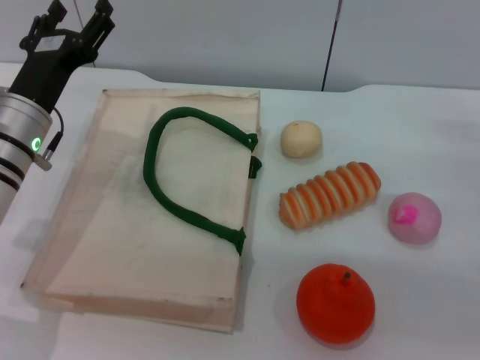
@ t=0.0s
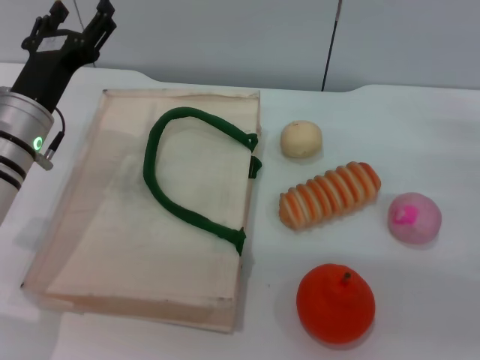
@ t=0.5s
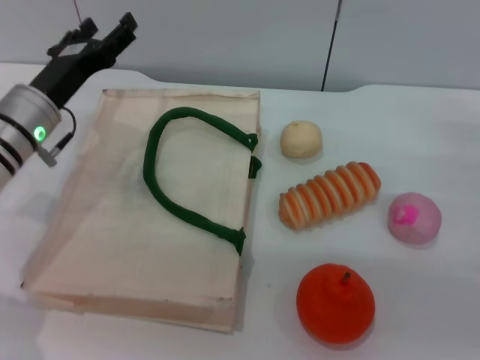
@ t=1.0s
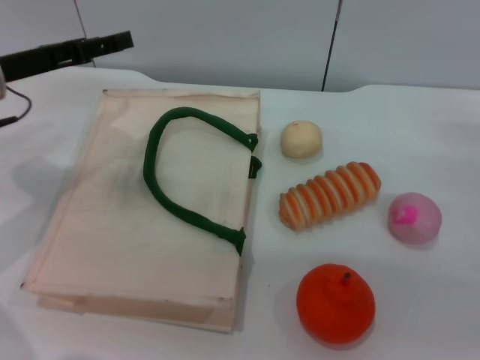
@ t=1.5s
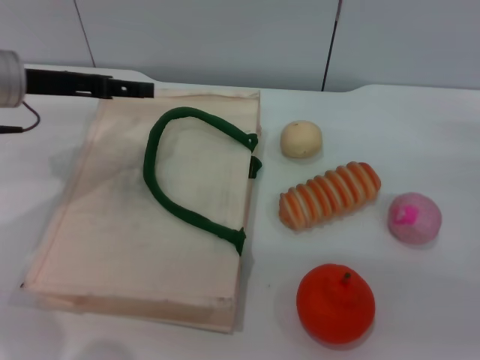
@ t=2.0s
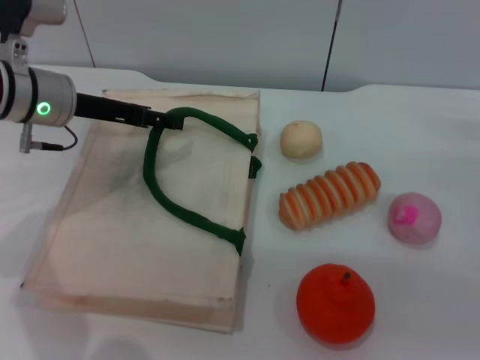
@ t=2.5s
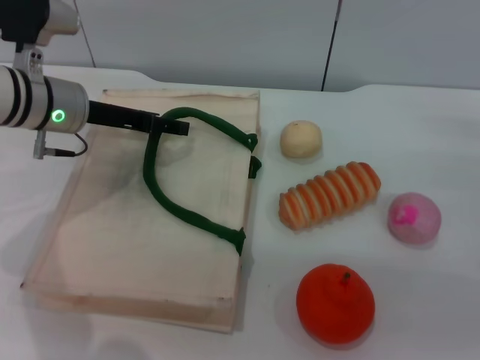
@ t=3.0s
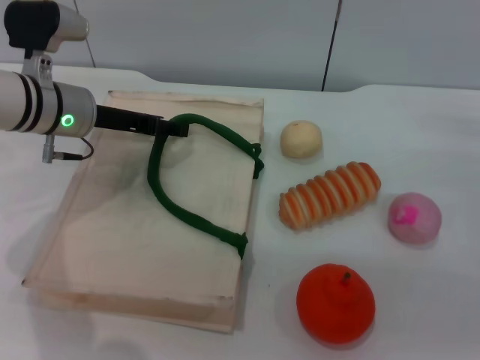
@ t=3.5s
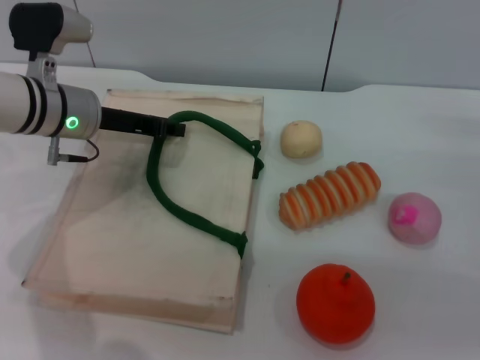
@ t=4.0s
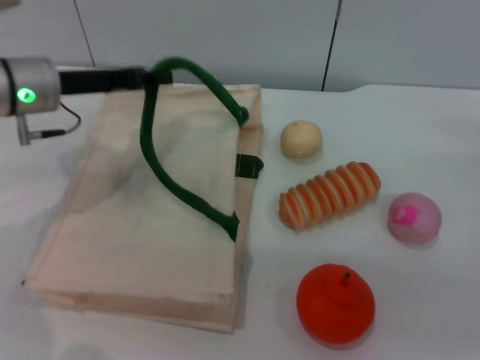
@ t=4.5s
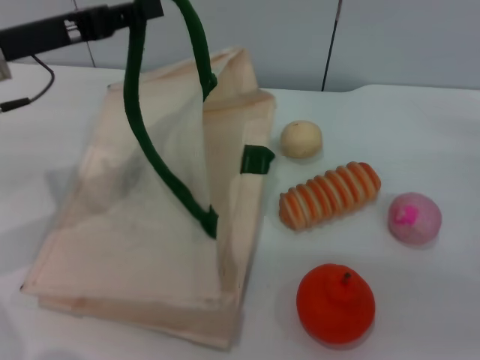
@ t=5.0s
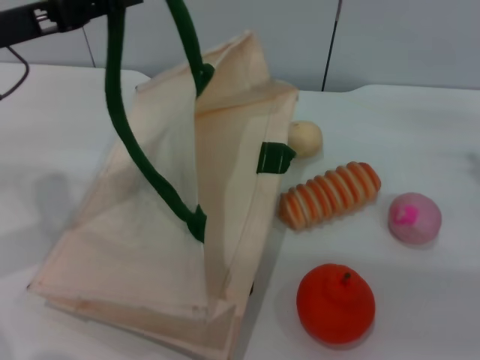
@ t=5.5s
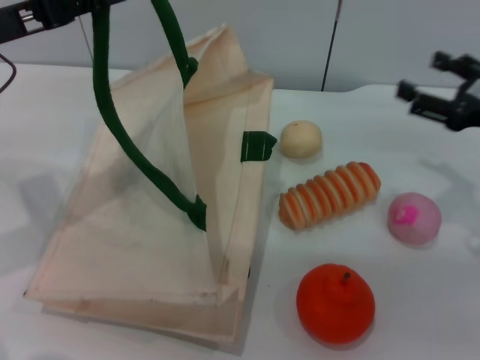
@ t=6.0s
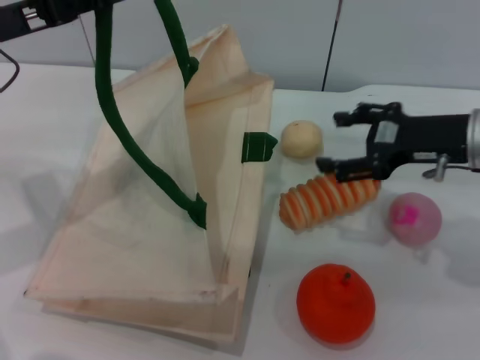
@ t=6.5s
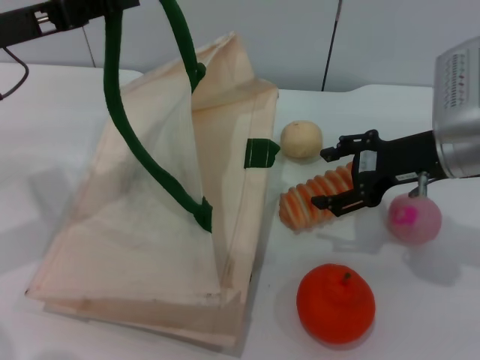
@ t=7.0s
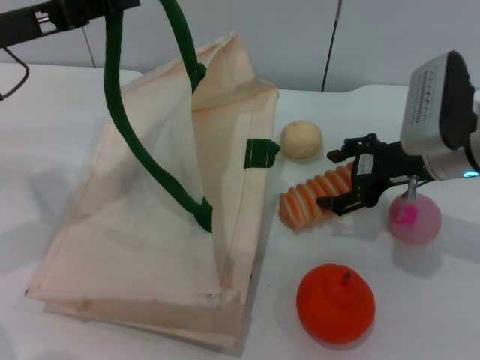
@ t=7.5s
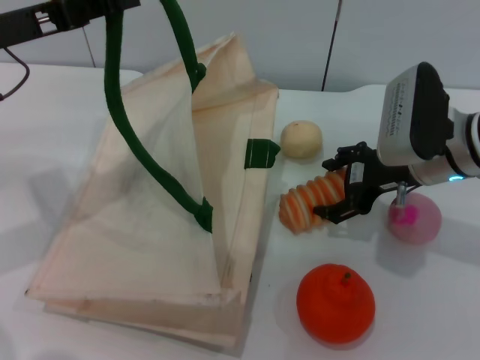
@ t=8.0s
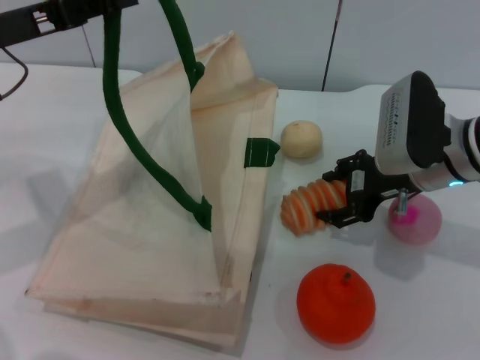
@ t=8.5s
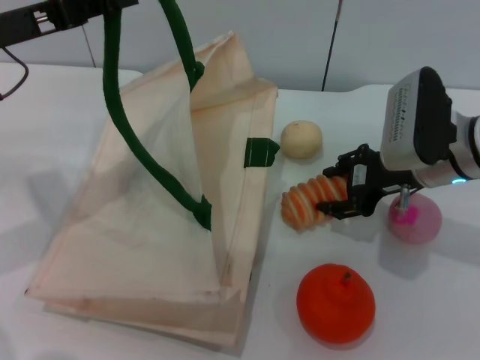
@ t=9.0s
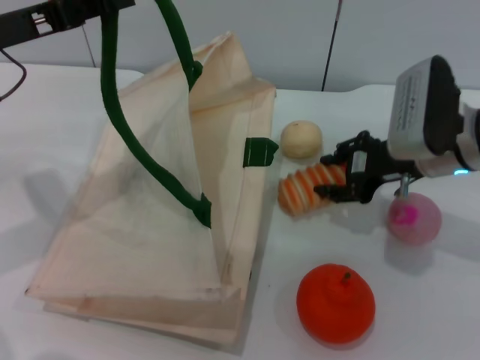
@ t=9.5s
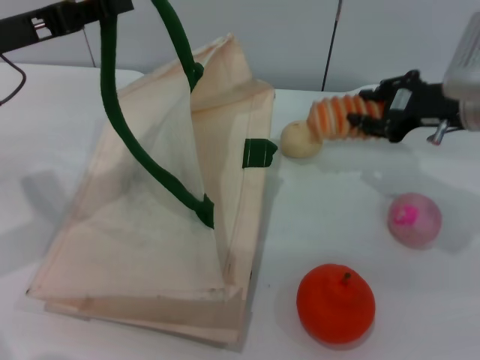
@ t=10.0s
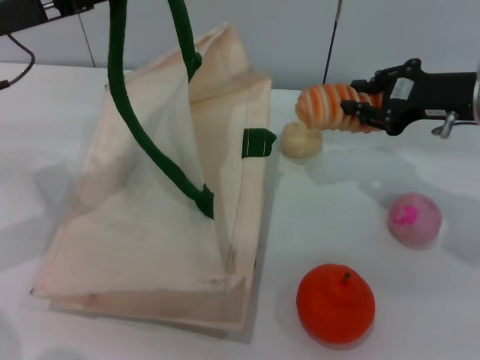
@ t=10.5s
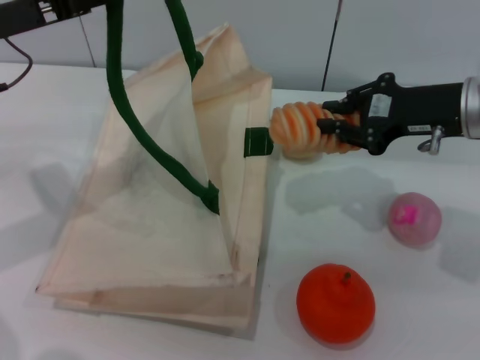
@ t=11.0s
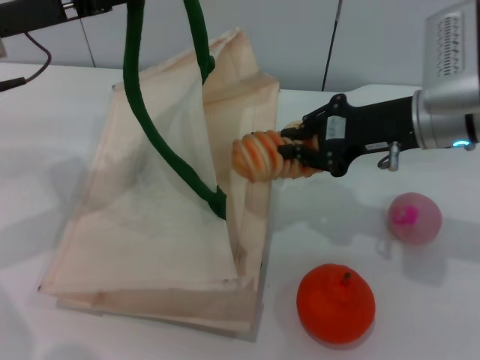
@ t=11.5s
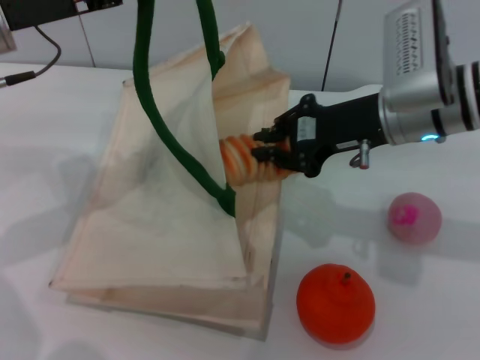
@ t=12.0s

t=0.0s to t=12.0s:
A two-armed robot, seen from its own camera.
Task of the whole recording: pick up the bread from the table and place it in the white handbag.
Step, t=0.0s to t=5.0s: Lift the woven bag with the left gripper to open it.
Step, t=5.5s to t=10.0s: Pick up the bread with the right gripper.
t=0.0s to t=2.0s: The left gripper moves upward, approximately 10 cm.
t=2.0s to t=4.0s: The left gripper shifts some 5 cm to the right, and closes.
t=4.0s to t=6.0s: The left gripper travels upward, to the left and backward by about 15 cm, and closes up. The right gripper travels upward by some 5 cm.
t=6.0s to t=8.0s: The right gripper goes some 10 cm to the left.
t=8.0s to t=10.0s: The right gripper moves roughly 5 cm, and closes up.
t=10.0s to t=12.0s: The right gripper is displaced to the left by approximately 10 cm, and closes.

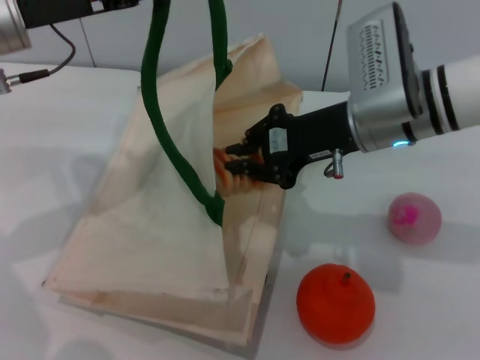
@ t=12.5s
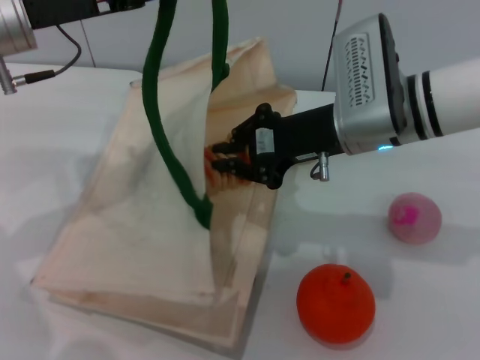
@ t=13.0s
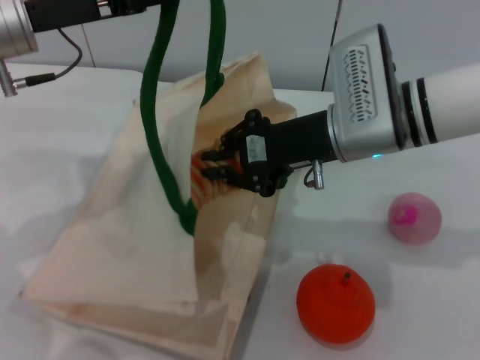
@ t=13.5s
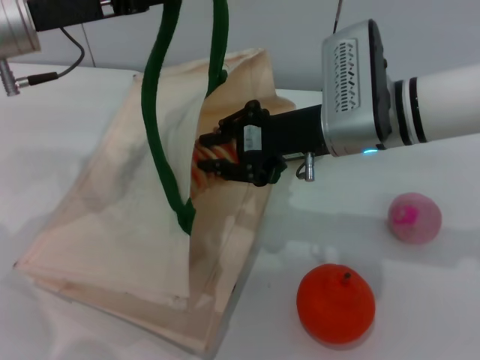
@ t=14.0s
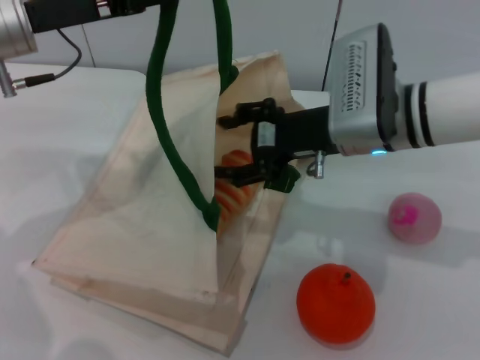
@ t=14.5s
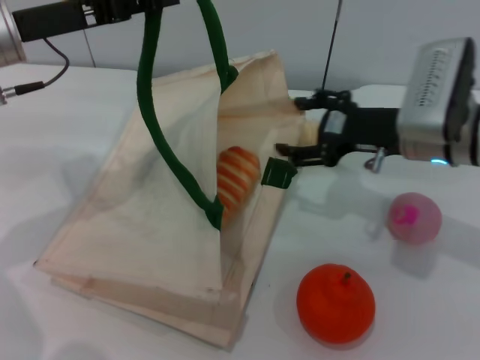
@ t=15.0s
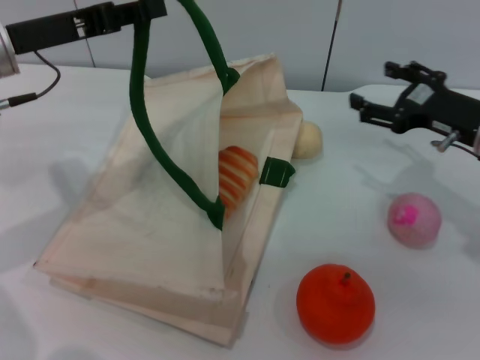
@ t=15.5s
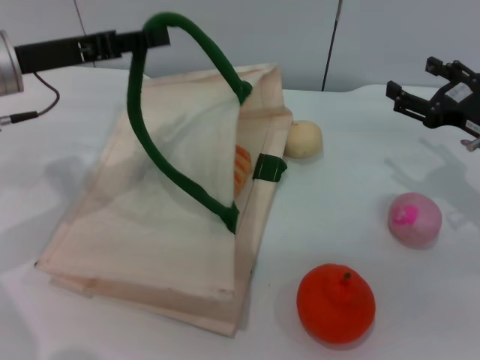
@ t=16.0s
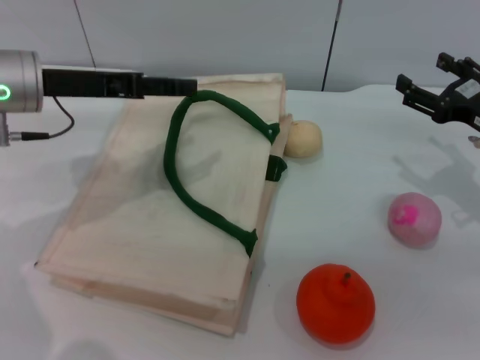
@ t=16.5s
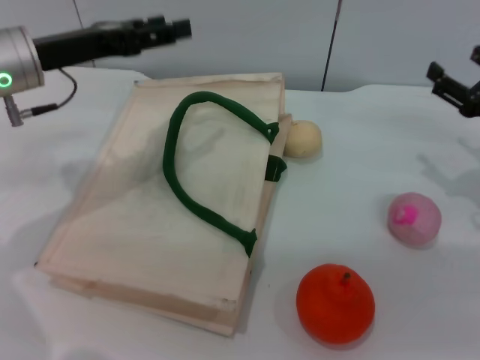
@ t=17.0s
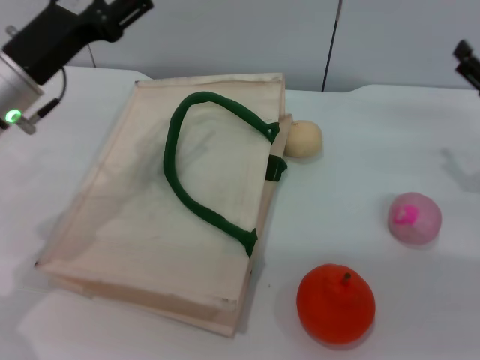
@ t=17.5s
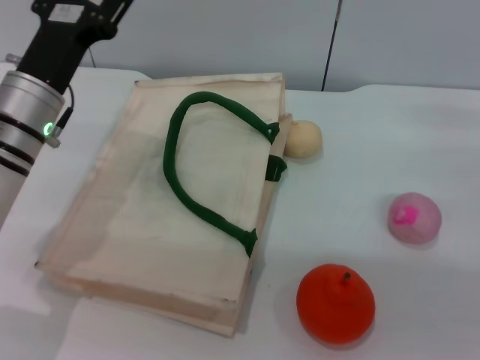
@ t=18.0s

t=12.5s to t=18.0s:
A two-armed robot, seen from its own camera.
Task of the whole recording: pick up the bread from the table and place it in the white handbag.
Step, t=12.5s to t=15.0s: Place the bread into the woven bag with the right gripper.
Step, t=15.5s to t=17.0s: Lower the woven bag with the left gripper to close it.
t=12.5s to t=14.5s: The right gripper opens up.
t=14.5s to t=16.0s: The right gripper shifts approximately 15 cm to the right.
t=16.0s to t=18.0s: The left gripper heads downward and to the right, covering roughly 10 cm, and opens up. The right gripper shifts by about 5 cm.
